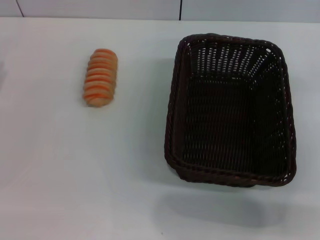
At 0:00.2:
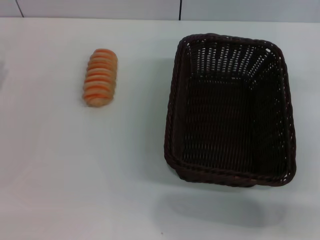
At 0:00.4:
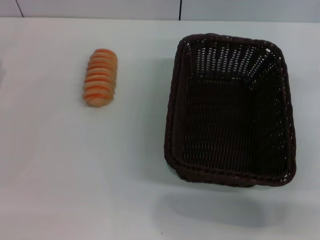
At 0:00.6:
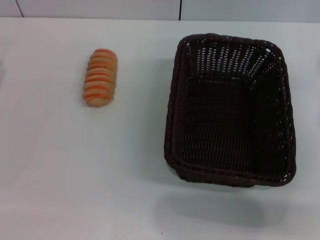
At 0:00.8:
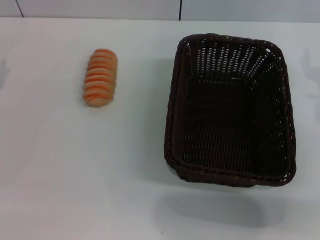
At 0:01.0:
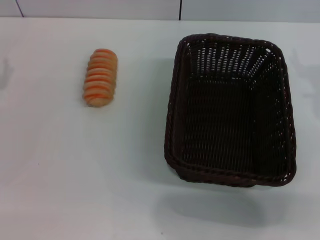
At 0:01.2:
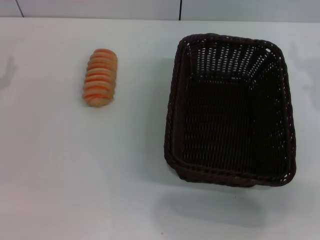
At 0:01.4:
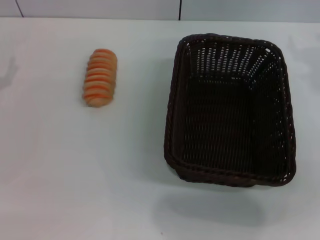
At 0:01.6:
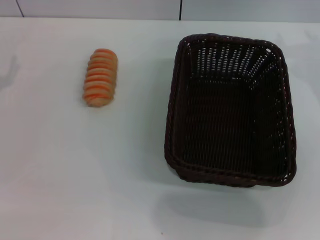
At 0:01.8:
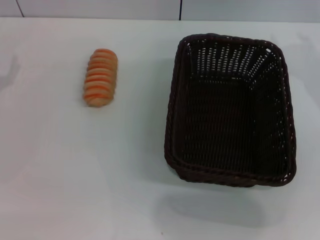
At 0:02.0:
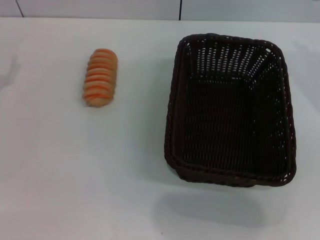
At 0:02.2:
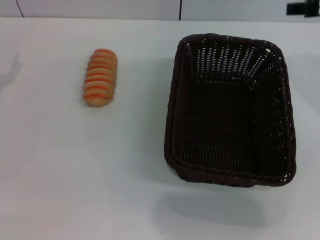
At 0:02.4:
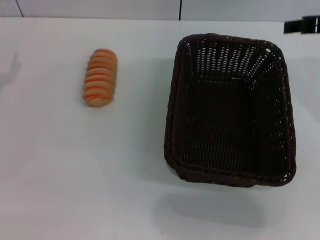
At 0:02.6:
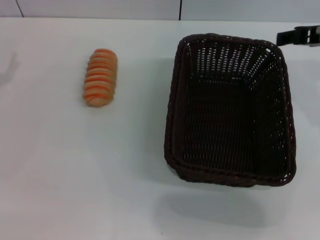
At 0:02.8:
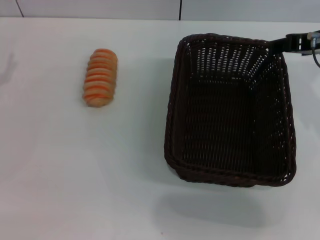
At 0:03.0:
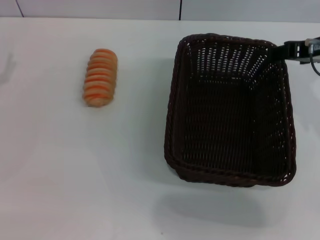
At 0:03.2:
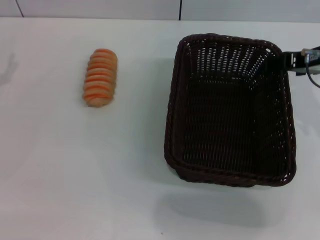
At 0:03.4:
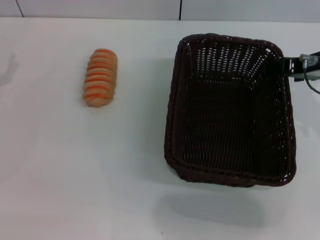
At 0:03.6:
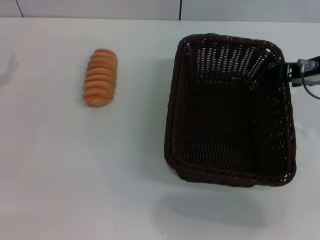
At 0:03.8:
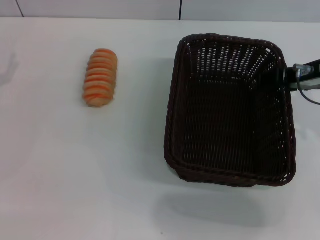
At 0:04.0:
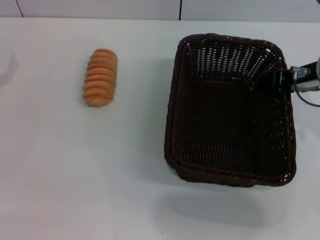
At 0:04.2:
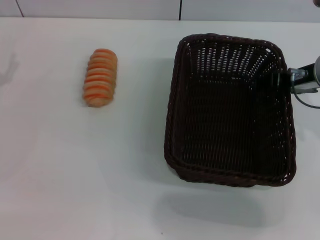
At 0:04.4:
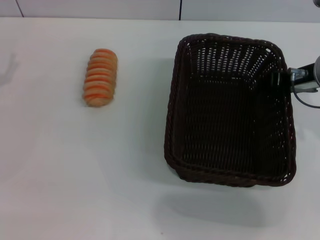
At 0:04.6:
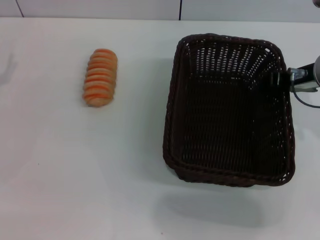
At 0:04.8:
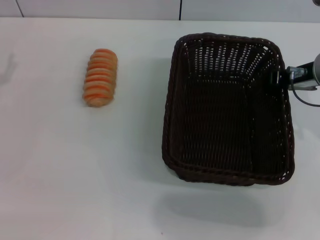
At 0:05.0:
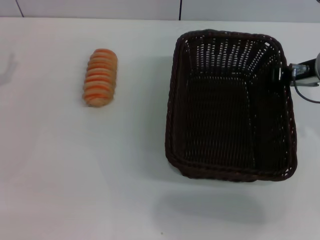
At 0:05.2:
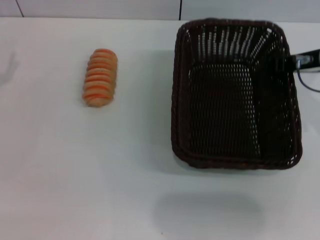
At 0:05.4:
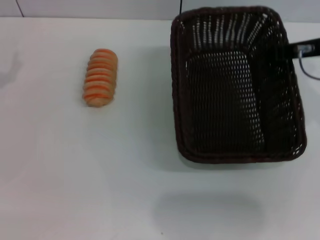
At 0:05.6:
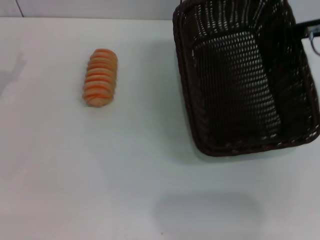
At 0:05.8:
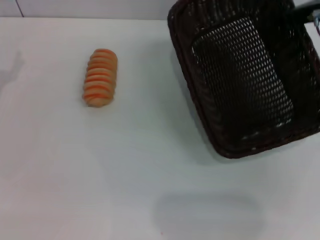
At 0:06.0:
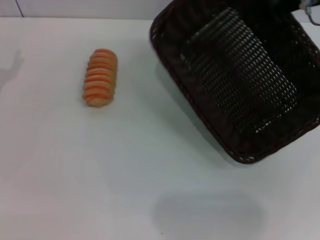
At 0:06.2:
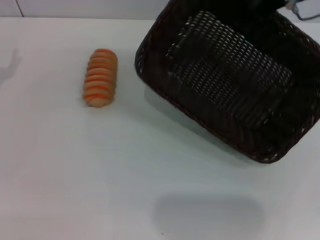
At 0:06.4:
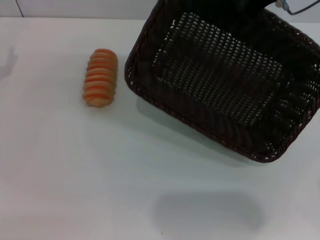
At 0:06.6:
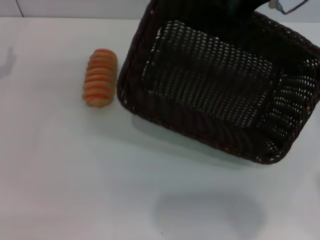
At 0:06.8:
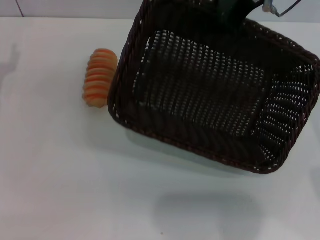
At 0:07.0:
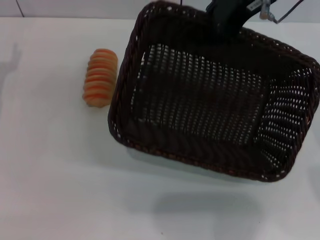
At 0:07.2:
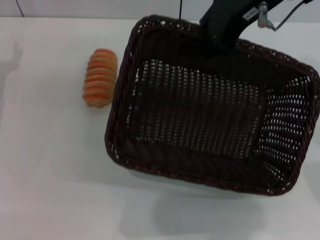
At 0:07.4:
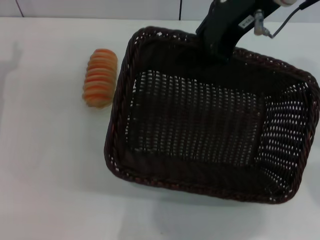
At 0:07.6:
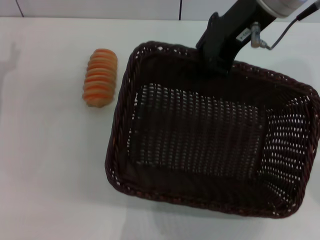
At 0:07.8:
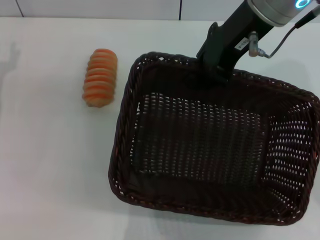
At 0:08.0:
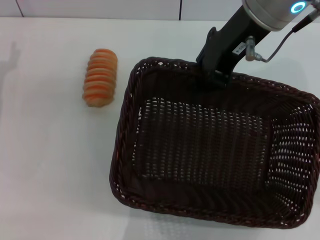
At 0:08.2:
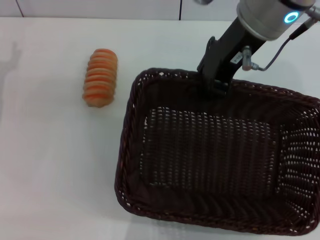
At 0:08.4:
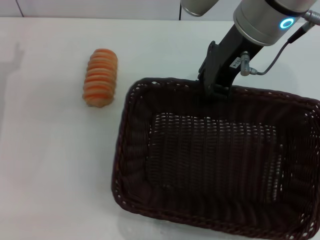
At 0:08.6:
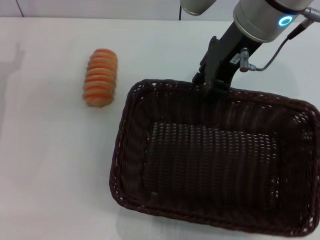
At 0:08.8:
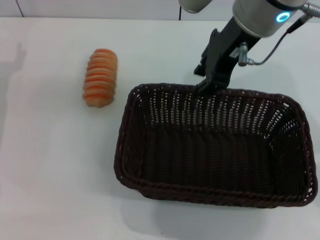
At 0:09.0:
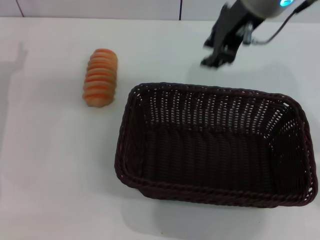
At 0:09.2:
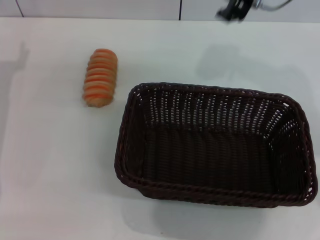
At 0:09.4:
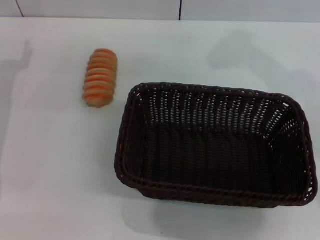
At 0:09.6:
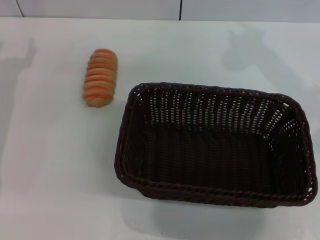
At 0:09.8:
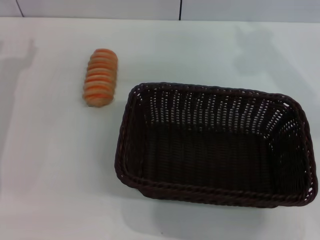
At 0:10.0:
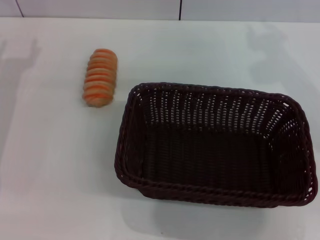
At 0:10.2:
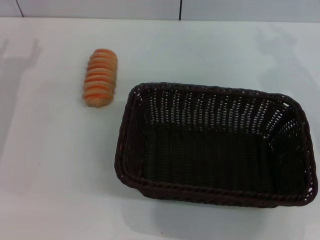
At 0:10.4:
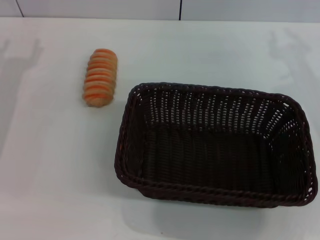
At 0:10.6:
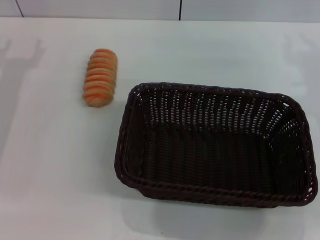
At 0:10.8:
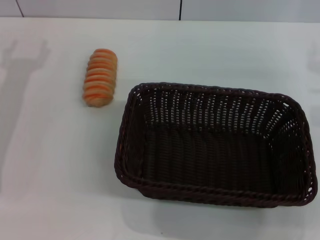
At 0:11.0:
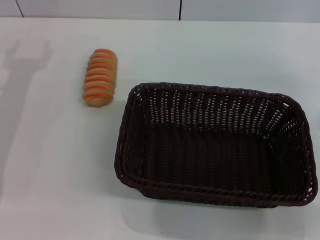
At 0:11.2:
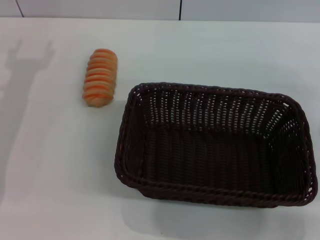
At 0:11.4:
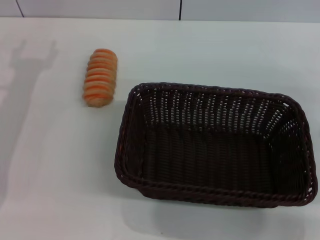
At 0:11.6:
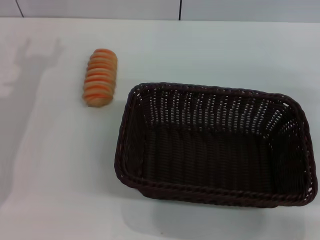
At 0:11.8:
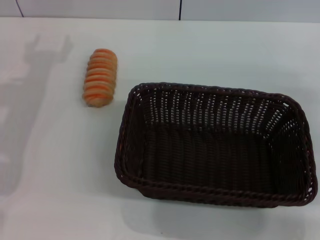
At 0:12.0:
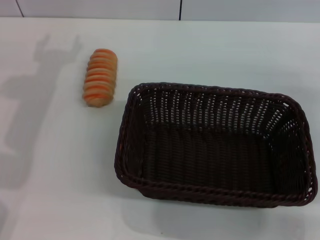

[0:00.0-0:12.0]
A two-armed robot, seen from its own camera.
Step, 0:00.0 to 0:05.4: Pick up the dark basket with the right gripper.
Step, 0:05.6 to 0:08.8: Place the dark basket in the center of view with the right gripper.
0:01.6 to 0:03.0: The right gripper shifts by about 5 cm.
0:03.0 to 0:04.4: The right gripper heads downward, covering approximately 5 cm.
0:04.4 to 0:06.0: The right gripper goes roughly 10 cm upward, and closes up.
0:06.0 to 0:07.6: The right gripper moves to the left, roughly 10 cm.
0:09.0 to 0:10.4: The right gripper heads to the right and downward, covering some 15 cm.

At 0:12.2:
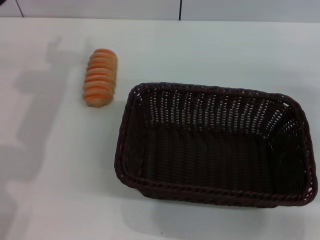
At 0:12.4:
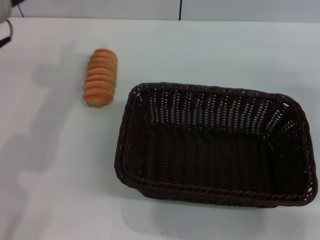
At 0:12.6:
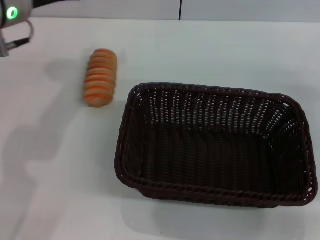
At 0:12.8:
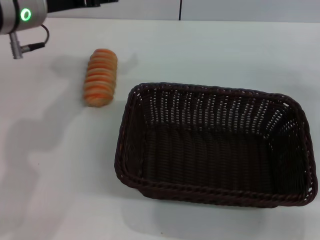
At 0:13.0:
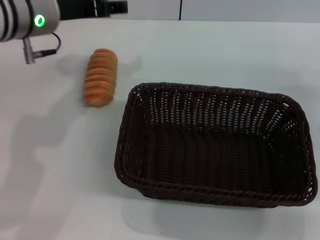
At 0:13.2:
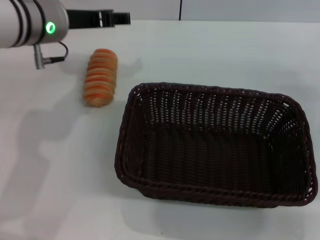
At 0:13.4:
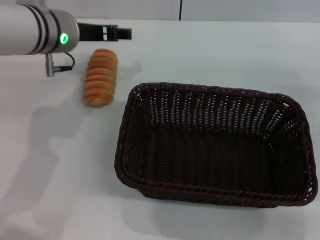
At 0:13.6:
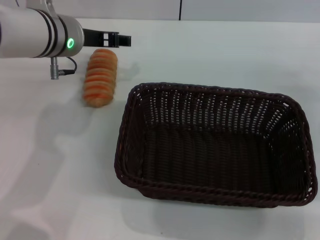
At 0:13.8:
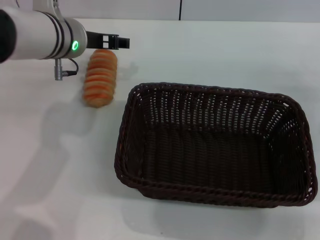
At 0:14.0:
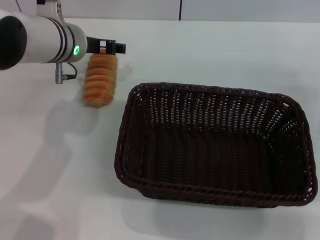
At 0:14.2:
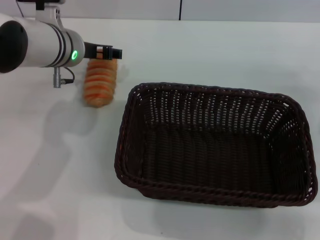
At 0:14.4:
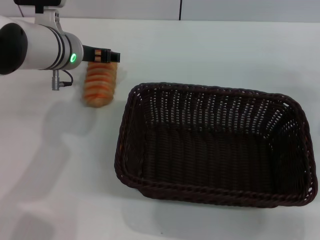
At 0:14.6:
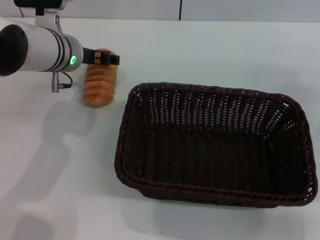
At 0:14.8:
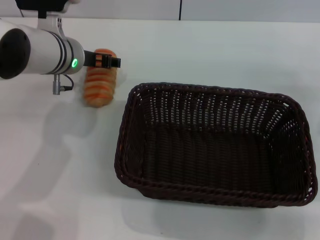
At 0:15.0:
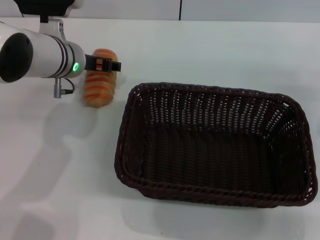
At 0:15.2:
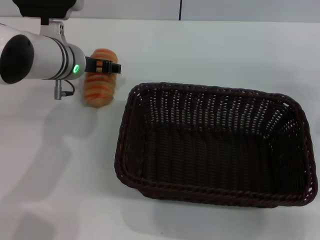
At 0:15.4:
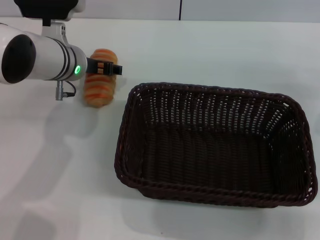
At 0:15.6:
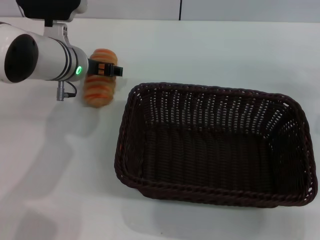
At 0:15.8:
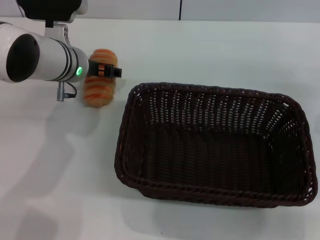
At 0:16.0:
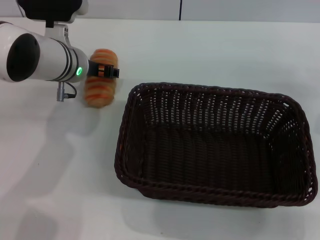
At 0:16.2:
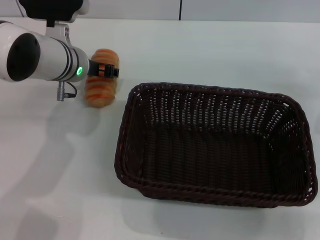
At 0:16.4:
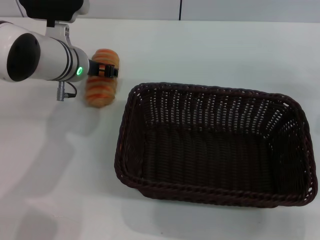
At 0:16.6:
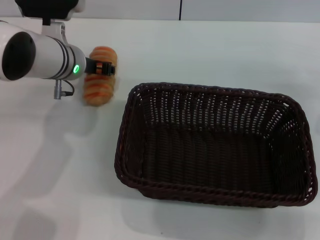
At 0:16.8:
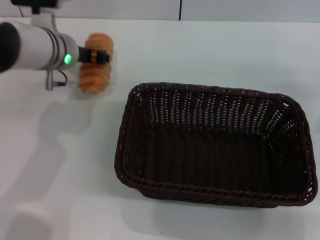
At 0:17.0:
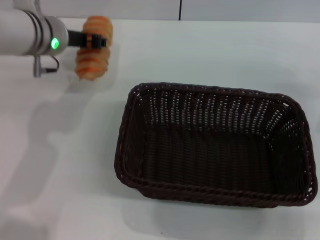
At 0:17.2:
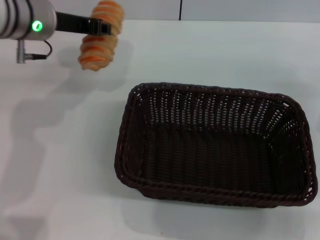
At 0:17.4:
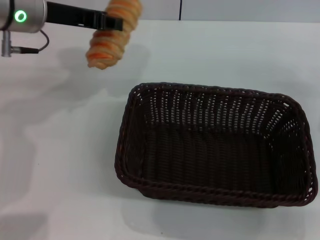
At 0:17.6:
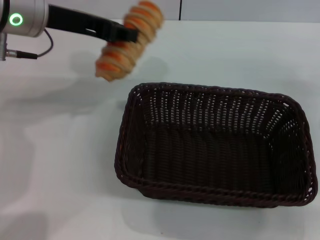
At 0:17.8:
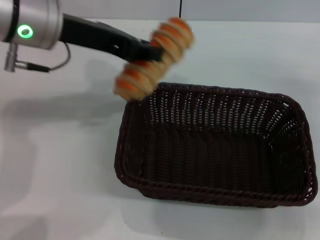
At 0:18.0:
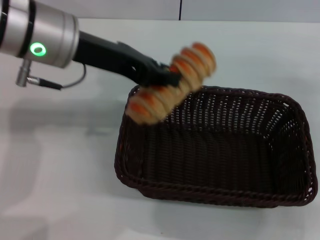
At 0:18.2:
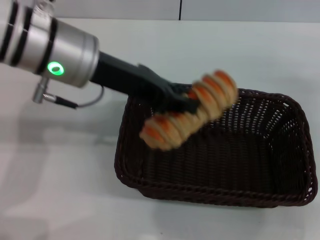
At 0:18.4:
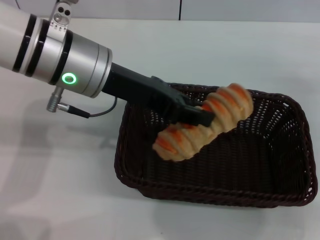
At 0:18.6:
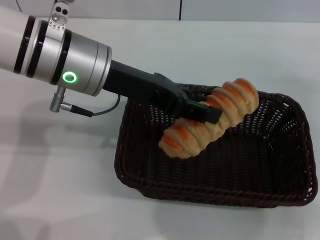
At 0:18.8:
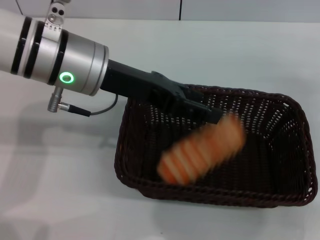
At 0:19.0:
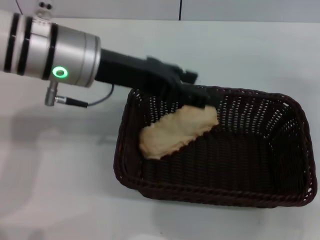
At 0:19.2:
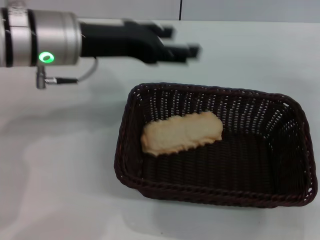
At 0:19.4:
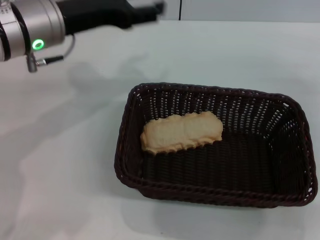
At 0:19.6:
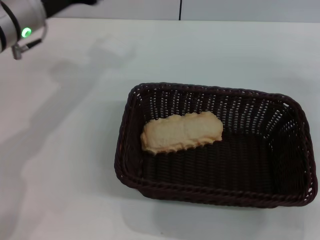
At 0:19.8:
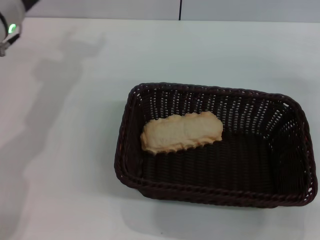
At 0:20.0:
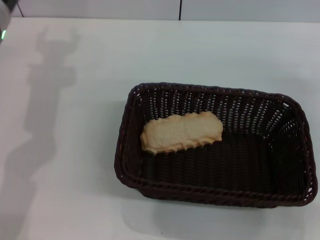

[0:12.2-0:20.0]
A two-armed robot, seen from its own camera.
Step, 0:12.2 to 0:16.8: Pick up the long bread with the left gripper.
Step, 0:17.0 to 0:19.0: Place the long bread into the dark basket with the left gripper.
0:12.2 to 0:13.8: The left gripper moves to the right, forward and downward, approximately 10 cm.
0:13.8 to 0:15.4: The grippers move only a little.
0:15.4 to 0:16.8: The left gripper closes its fingers.
0:16.8 to 0:18.4: The left gripper is displaced backward and upward by some 10 cm, and closes its fingers.
0:18.4 to 0:20.0: The left gripper goes approximately 15 cm to the left, forward and downward, and opens.
